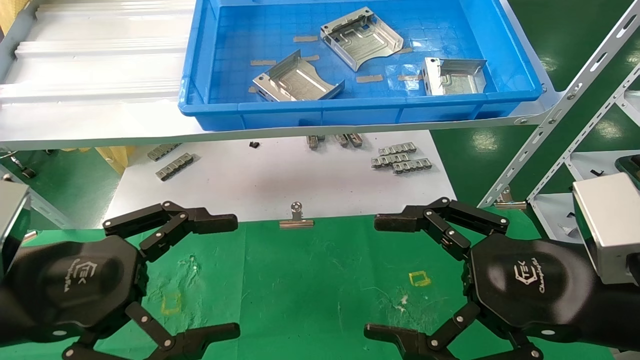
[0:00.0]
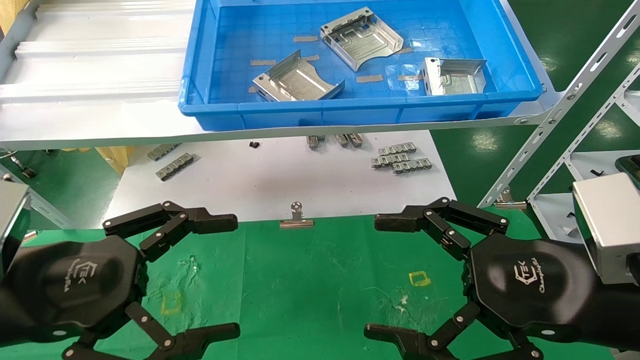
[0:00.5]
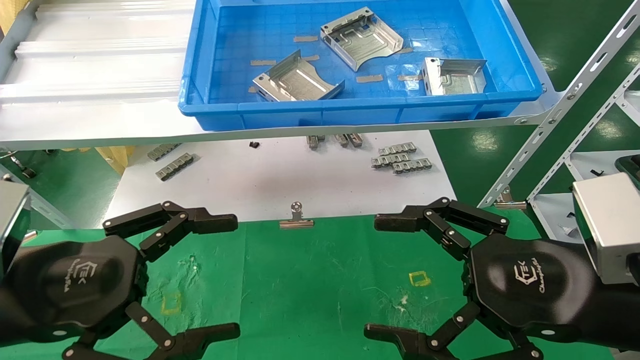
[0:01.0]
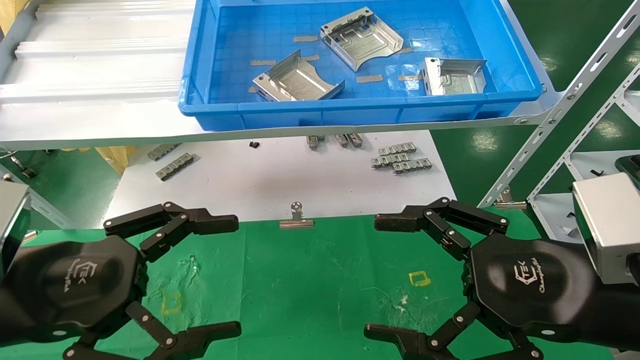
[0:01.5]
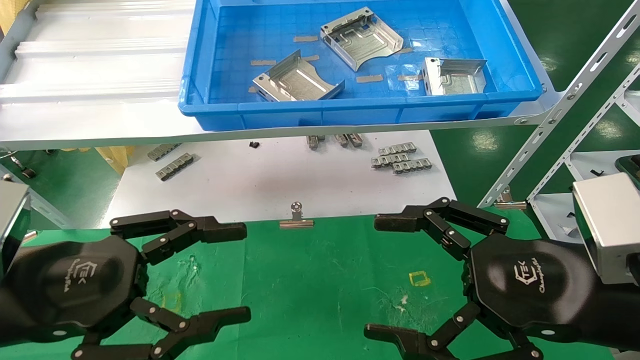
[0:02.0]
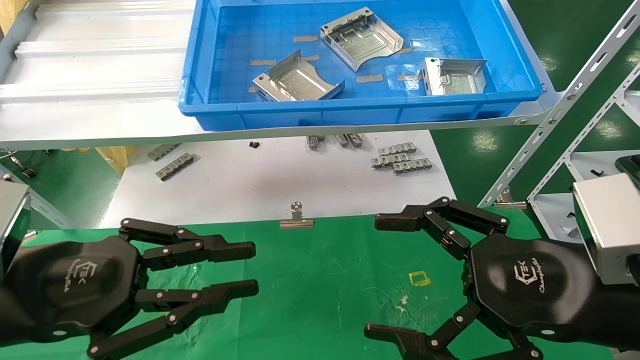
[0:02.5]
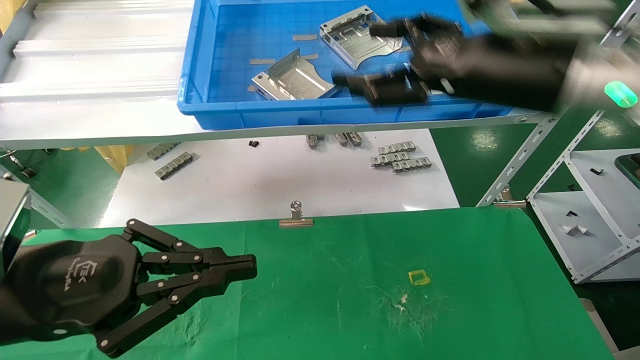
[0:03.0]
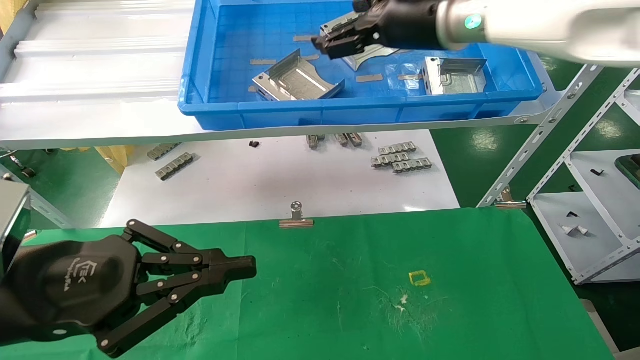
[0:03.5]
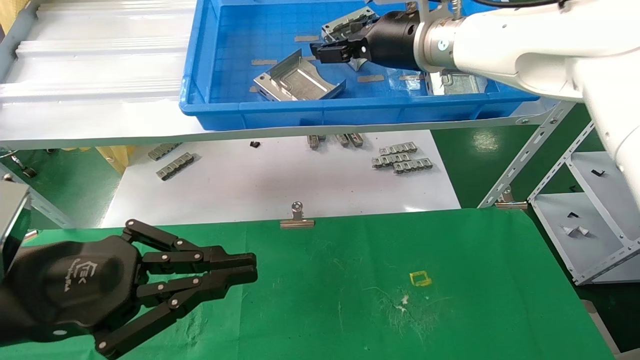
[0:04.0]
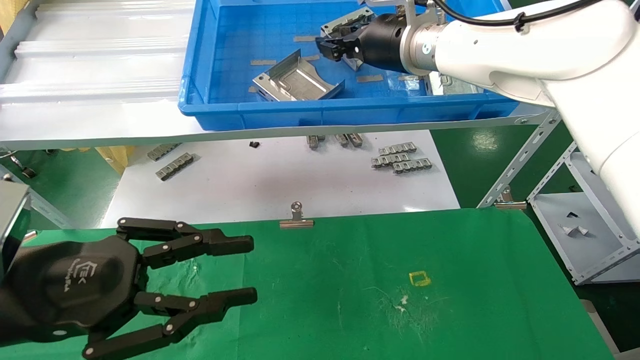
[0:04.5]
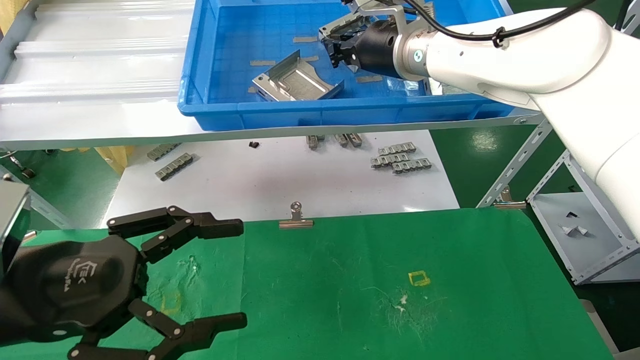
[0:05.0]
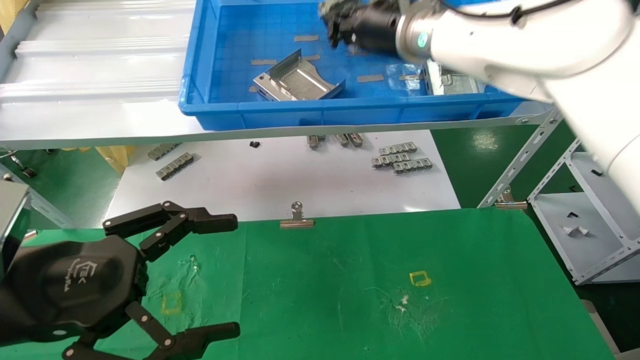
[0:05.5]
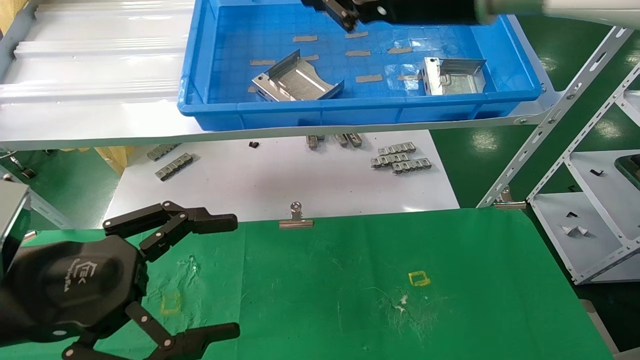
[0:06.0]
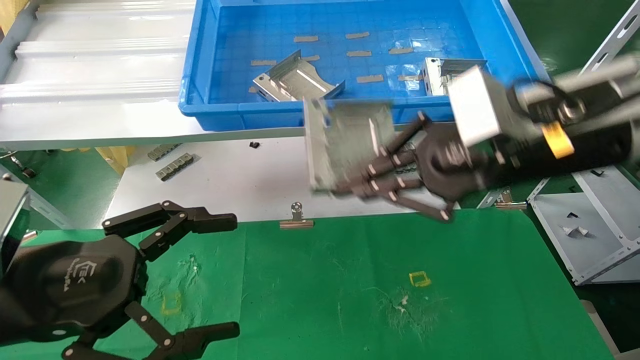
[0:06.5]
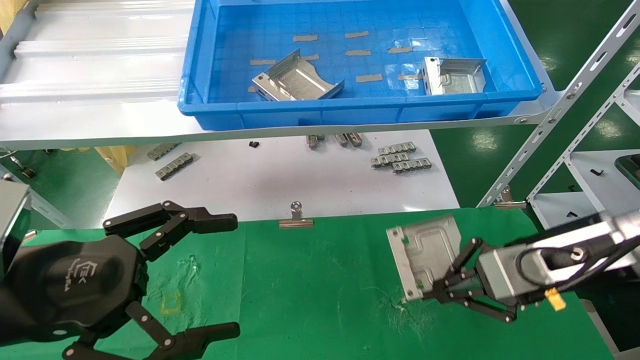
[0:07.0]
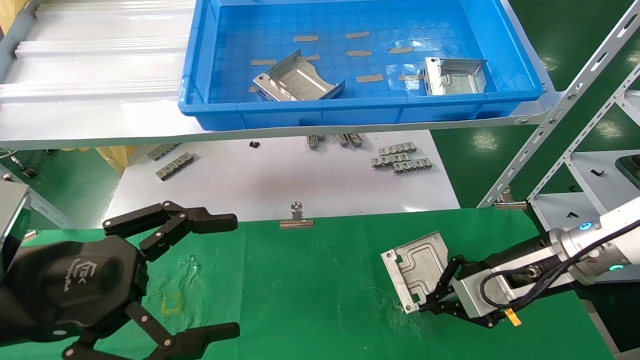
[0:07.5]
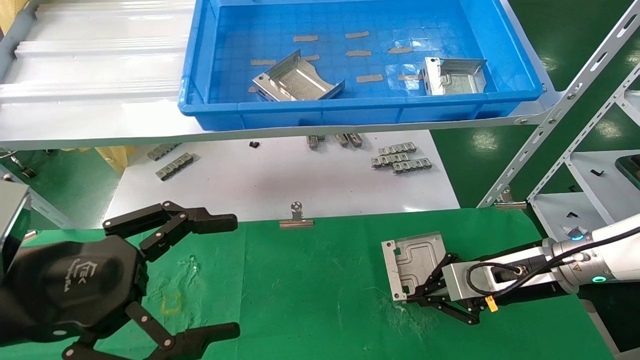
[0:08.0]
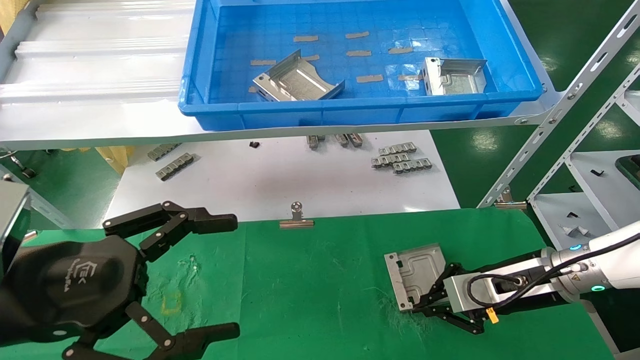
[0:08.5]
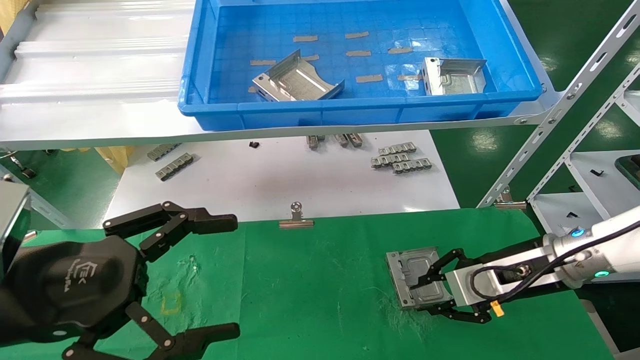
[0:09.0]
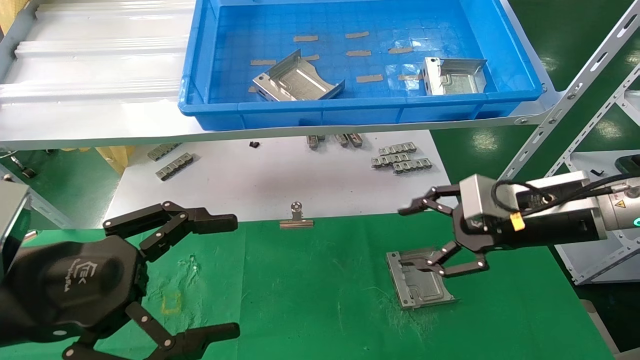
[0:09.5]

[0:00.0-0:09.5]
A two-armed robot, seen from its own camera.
Task of the whole recording: use the mechanical arm to pick up the parts and place them on the table.
Step, 0:02.5 to 0:05.5: Pick up the hard drive bracket from the feeding area.
0:00.0 to 0:02.0: Neither gripper changes place.
0:02.0 to 0:04.0: The left gripper closes its fingers, while the right gripper moves forward, upward and to the left, about 35 cm.
0:04.0 to 0:05.5: The left gripper opens its fingers. The right gripper closes its fingers.
0:05.5 to 0:07.5: The right gripper moves downward and to the right, about 35 cm.
0:07.5 to 0:09.5: The right gripper moves upward, approximately 5 cm, and opens its fingers.

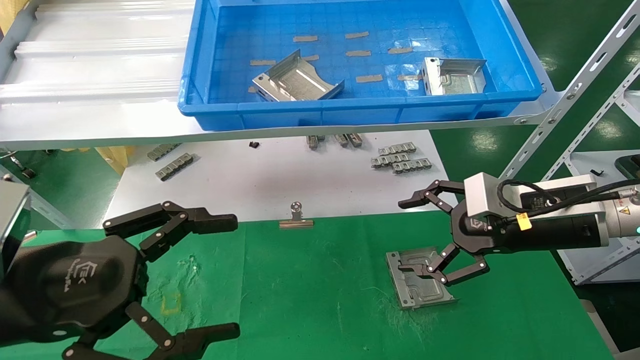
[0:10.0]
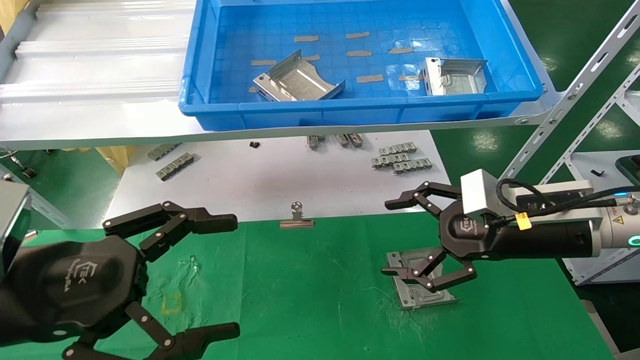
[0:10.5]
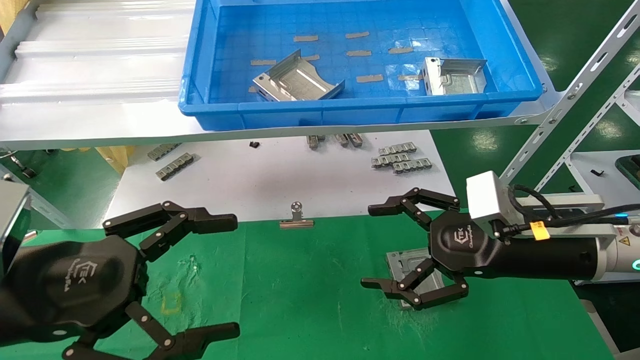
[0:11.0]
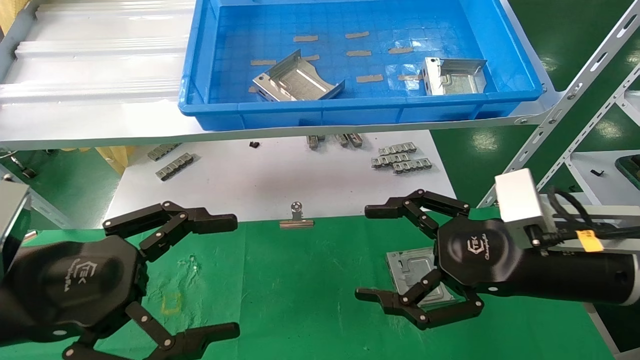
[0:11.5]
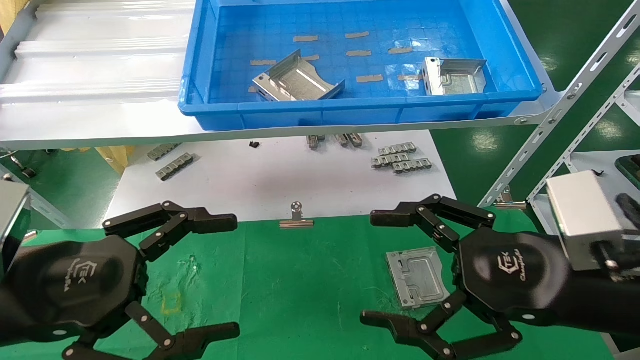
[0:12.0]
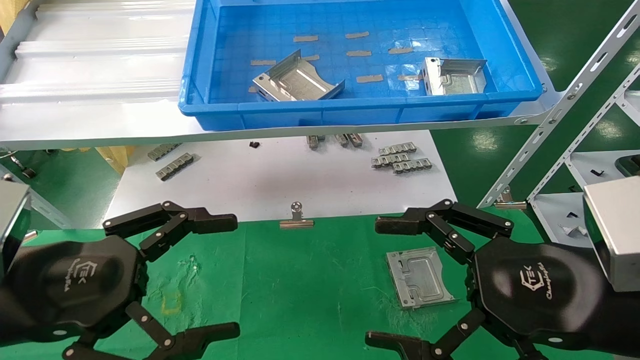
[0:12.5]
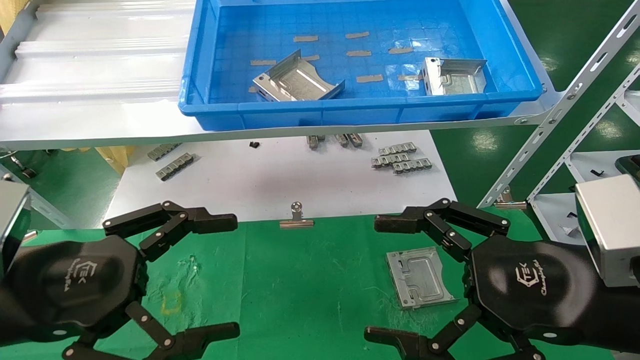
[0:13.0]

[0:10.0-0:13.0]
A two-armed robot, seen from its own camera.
Task of the whole recording: use the mechanical arm to pick up the parts and place them on the table.
0:10.0 to 0:11.5: The right gripper shifts some 5 cm backward.
0:11.5 to 0:13.0: The right gripper heads backward, covering approximately 5 cm.
